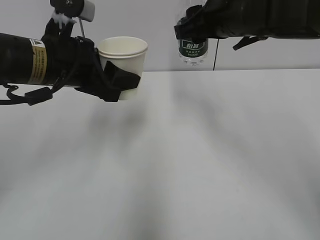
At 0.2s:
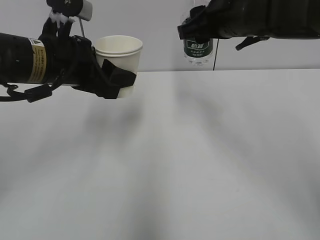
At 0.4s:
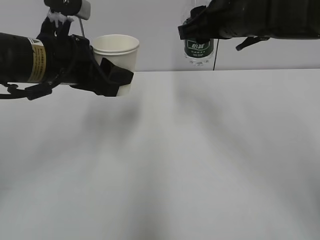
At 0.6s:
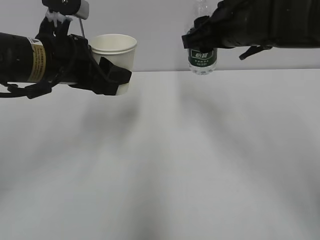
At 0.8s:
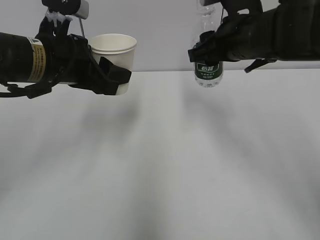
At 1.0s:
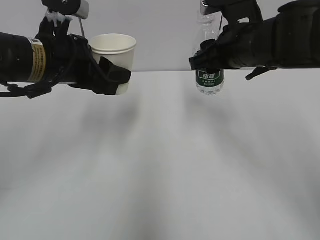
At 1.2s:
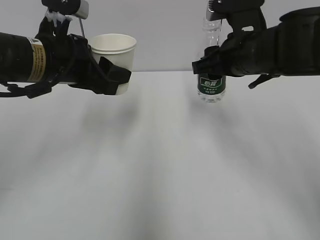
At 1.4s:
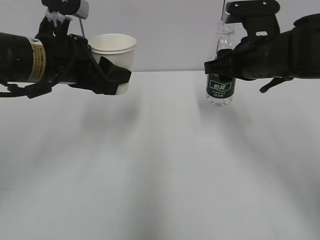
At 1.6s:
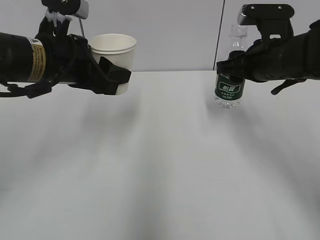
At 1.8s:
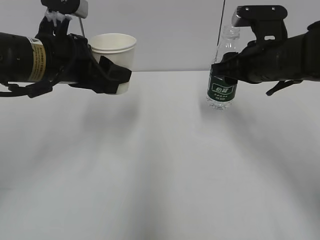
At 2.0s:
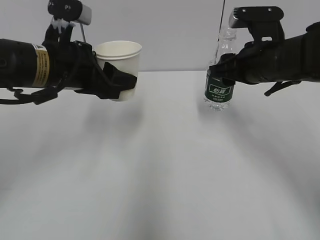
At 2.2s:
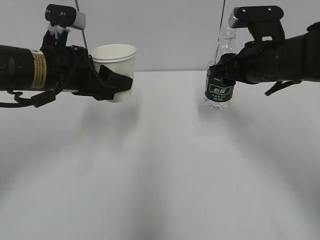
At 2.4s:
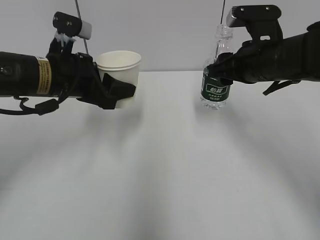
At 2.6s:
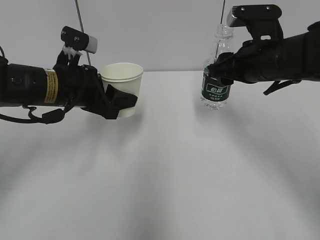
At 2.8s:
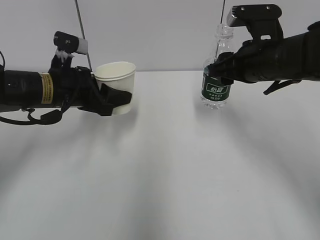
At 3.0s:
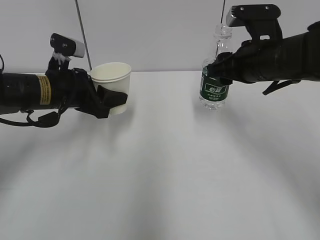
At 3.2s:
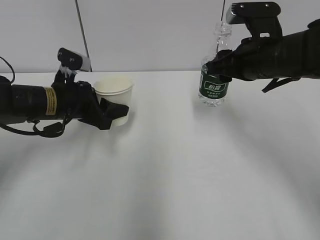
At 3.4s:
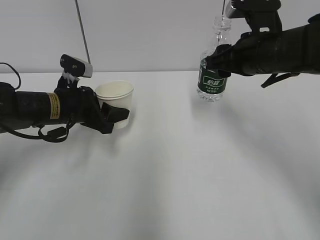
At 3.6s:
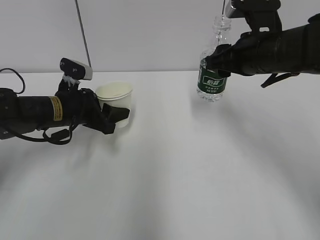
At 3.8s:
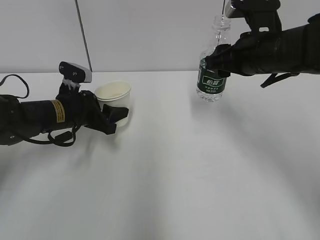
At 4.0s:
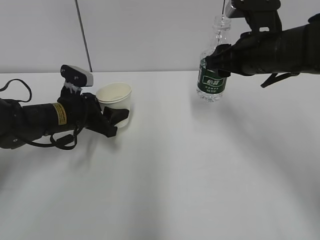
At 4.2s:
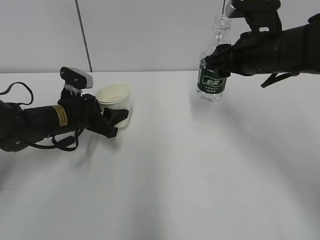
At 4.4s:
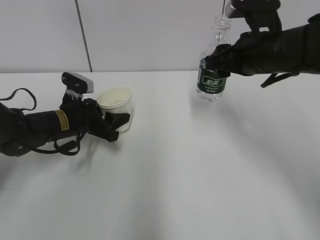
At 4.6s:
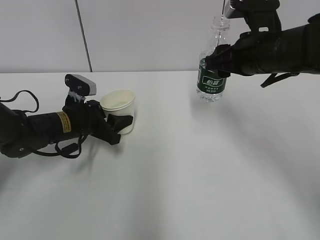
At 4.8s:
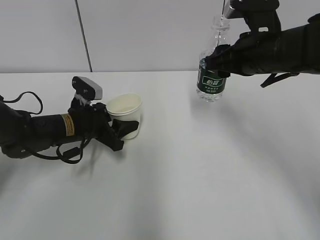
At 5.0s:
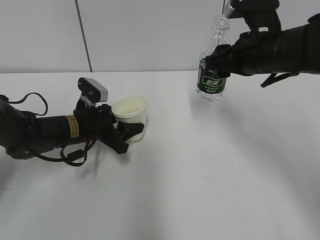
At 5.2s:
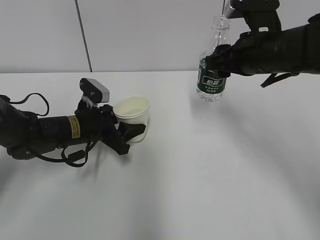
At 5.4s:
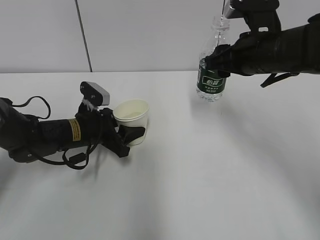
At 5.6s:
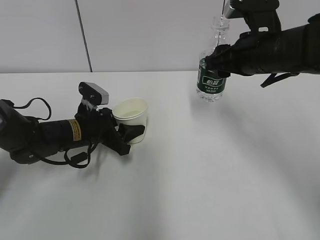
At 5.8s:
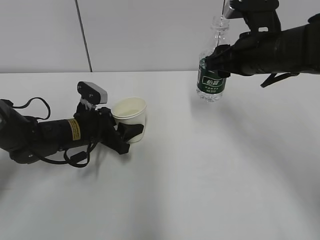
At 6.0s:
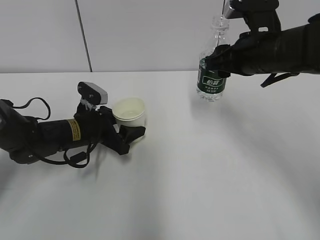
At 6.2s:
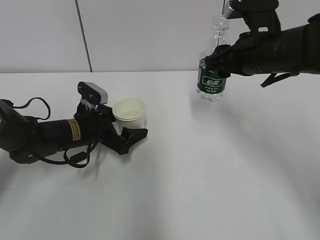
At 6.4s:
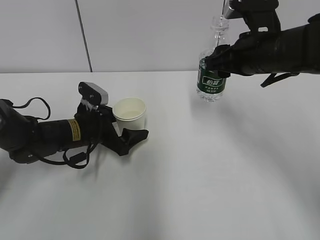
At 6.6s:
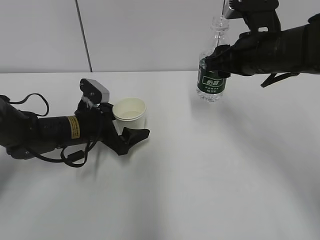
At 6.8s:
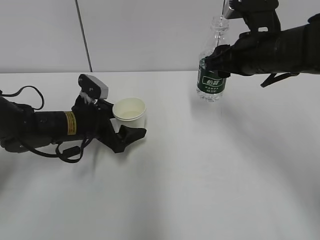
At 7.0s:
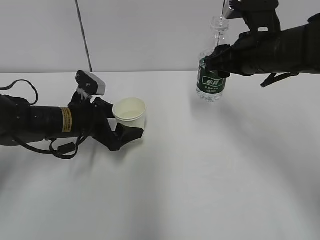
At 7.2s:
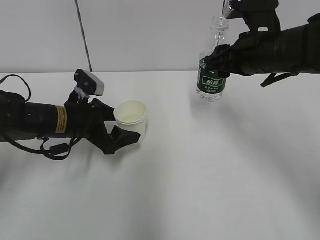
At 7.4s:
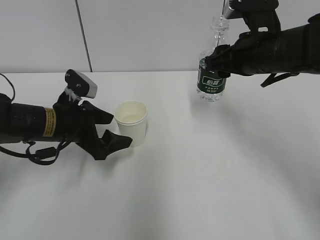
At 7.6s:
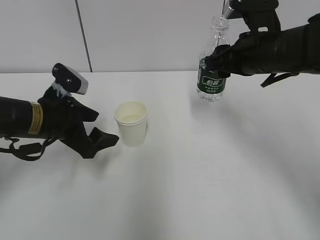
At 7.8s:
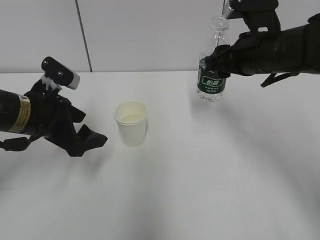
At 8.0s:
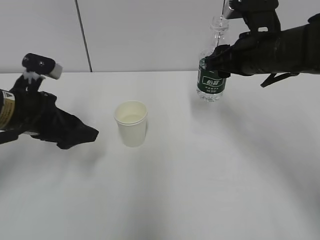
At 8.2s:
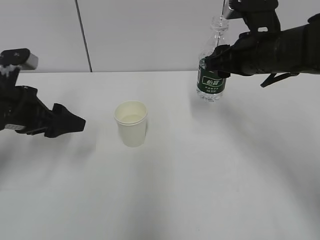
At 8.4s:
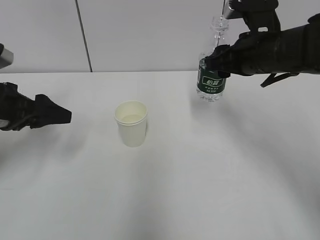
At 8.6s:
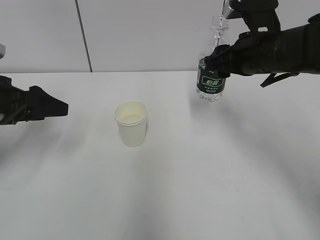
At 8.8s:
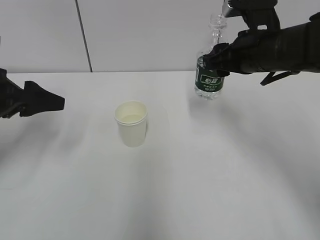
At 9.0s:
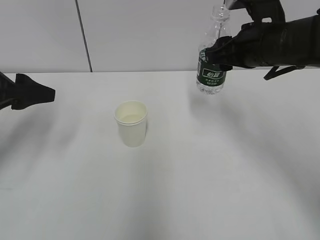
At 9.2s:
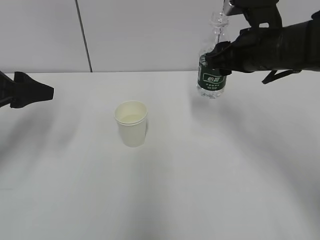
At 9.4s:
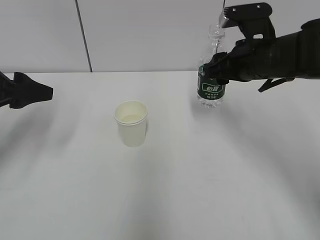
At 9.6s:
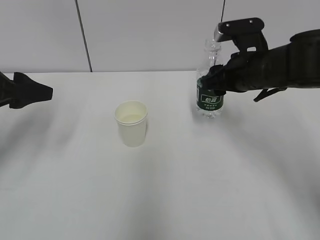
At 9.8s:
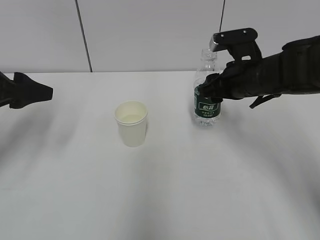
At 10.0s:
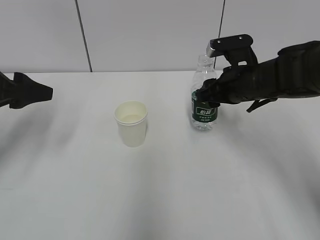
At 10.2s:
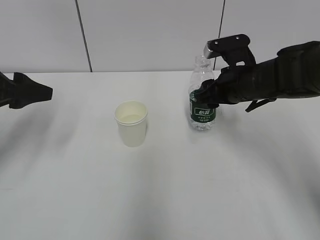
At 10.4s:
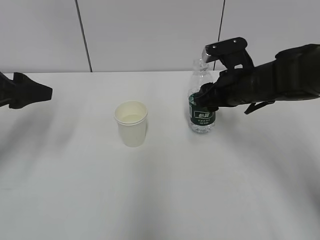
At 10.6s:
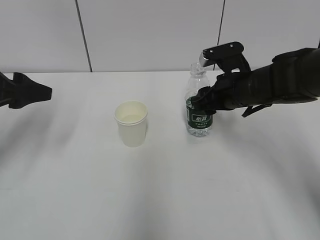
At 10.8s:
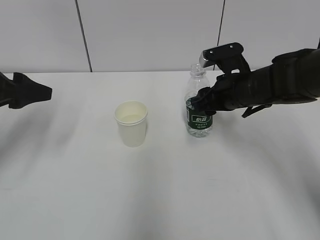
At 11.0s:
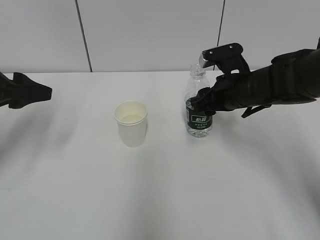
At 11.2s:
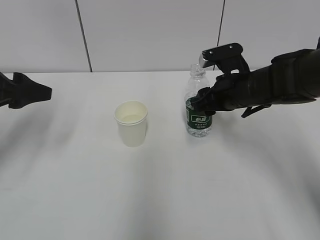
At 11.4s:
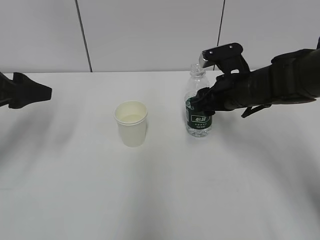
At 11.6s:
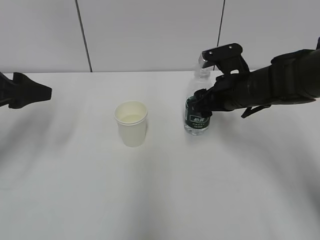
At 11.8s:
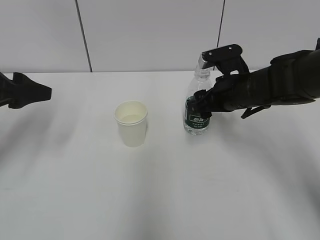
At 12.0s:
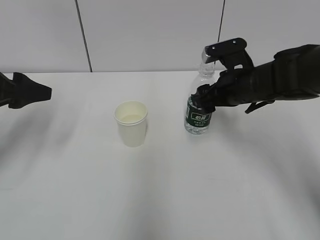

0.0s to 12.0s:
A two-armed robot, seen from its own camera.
Step, 0.0s to 4.0s: Place the water bottle with the right hand.
0.0s to 1.6s: The right gripper is displaced downward and to the right by about 10 cm.
1.6s to 3.0s: The left gripper moves downward, about 10 cm.
3.0s to 4.4s: The left gripper travels downward by roughly 10 cm.
4.4s to 6.0s: There are only small adjustments of the grippers.
6.0s to 7.6s: The left gripper shifts some 10 cm upward and backward, and opens up.
7.6s to 9.0s: The left gripper travels to the left and upward by roughly 15 cm.
9.0s to 10.4s: The right gripper shifts some 10 cm downward.
10.4s to 12.0s: The right gripper opens its fingers.

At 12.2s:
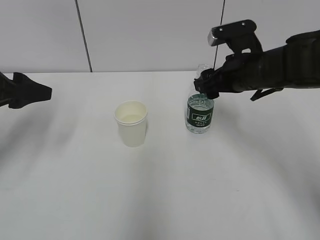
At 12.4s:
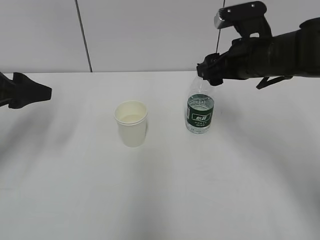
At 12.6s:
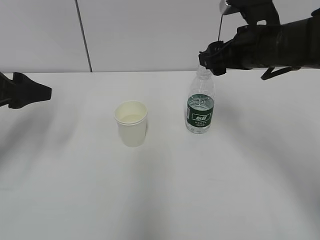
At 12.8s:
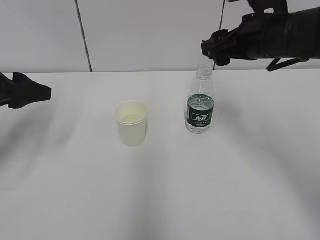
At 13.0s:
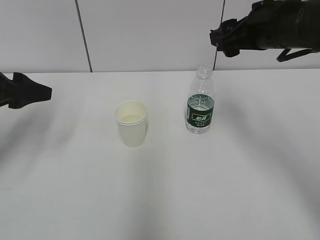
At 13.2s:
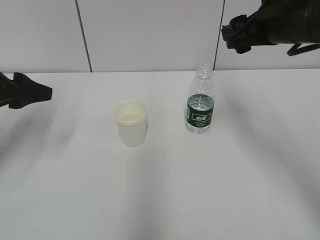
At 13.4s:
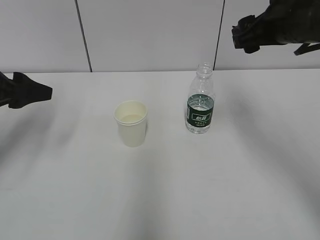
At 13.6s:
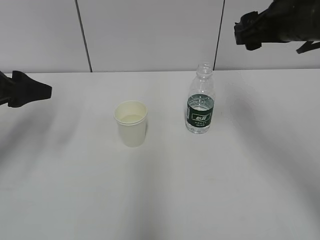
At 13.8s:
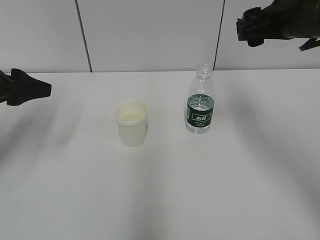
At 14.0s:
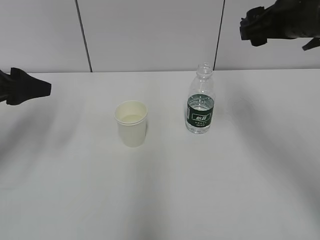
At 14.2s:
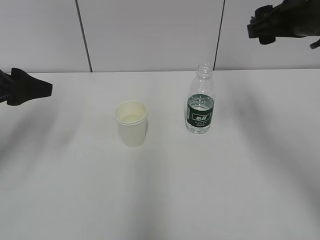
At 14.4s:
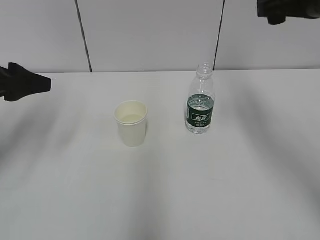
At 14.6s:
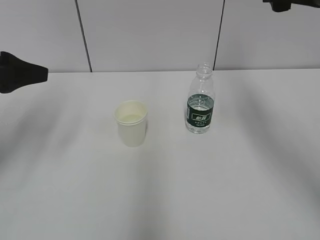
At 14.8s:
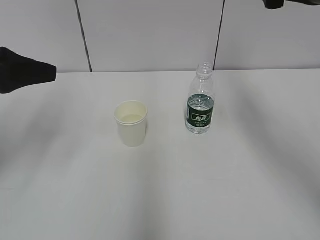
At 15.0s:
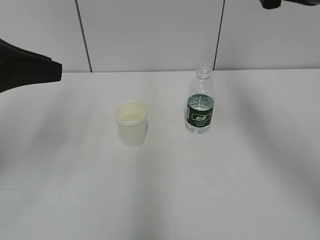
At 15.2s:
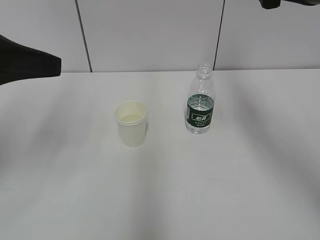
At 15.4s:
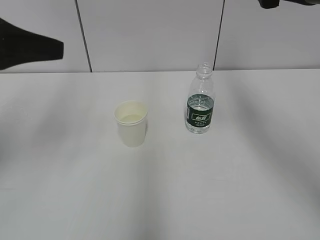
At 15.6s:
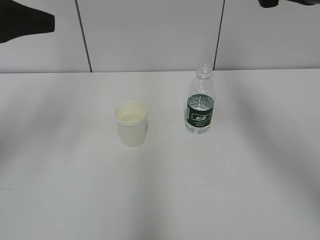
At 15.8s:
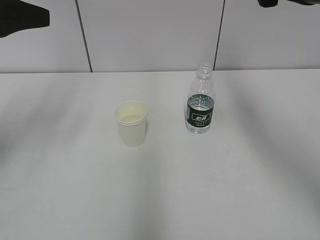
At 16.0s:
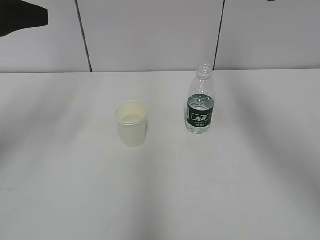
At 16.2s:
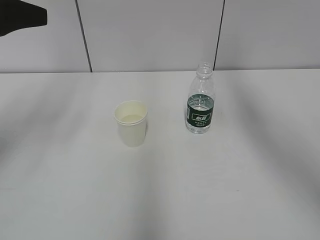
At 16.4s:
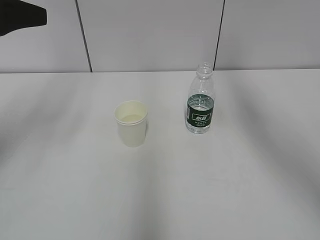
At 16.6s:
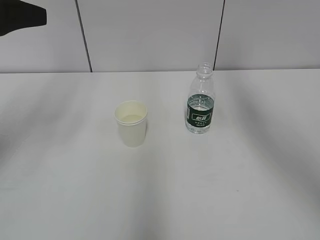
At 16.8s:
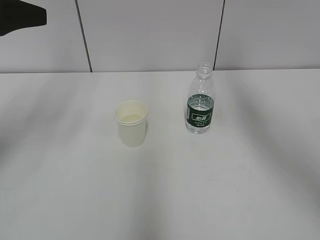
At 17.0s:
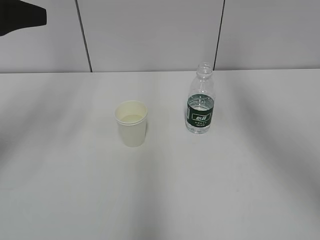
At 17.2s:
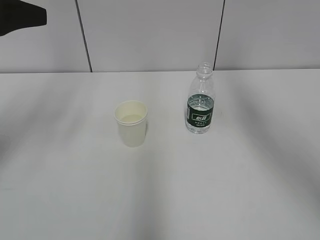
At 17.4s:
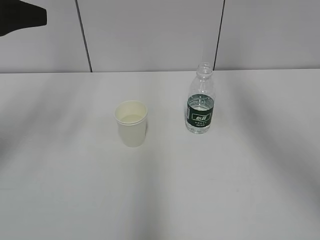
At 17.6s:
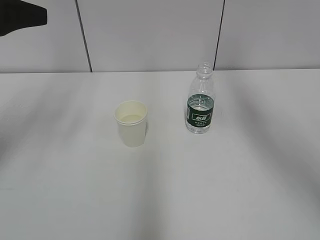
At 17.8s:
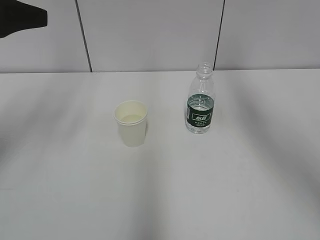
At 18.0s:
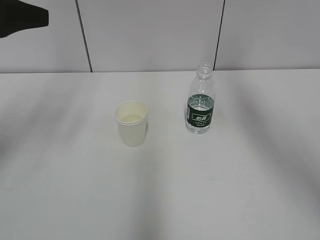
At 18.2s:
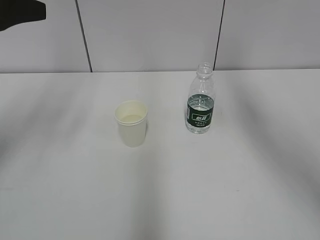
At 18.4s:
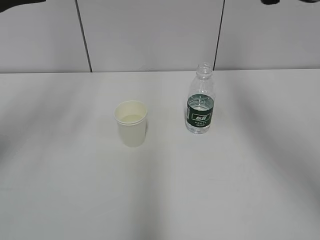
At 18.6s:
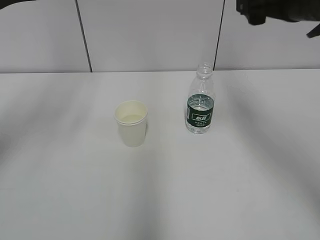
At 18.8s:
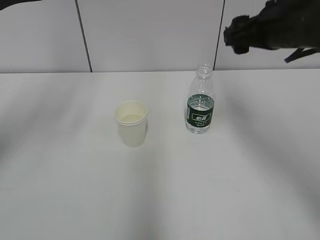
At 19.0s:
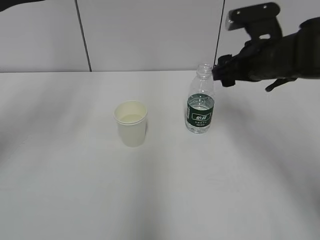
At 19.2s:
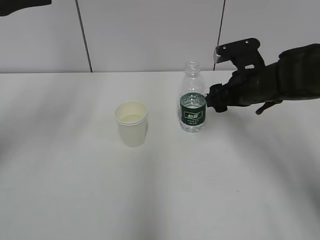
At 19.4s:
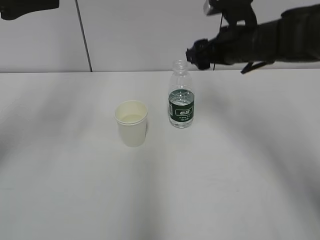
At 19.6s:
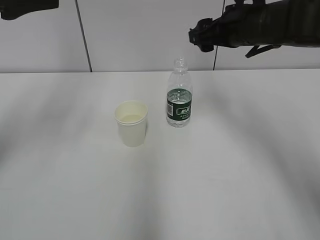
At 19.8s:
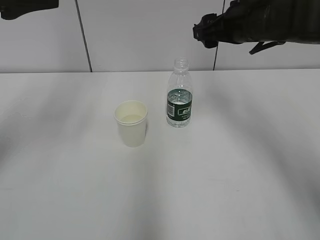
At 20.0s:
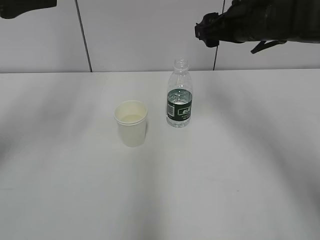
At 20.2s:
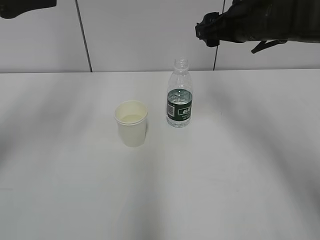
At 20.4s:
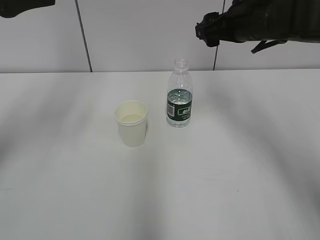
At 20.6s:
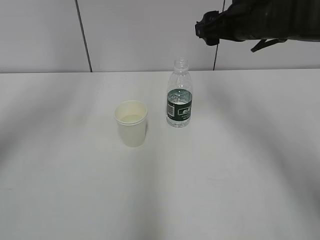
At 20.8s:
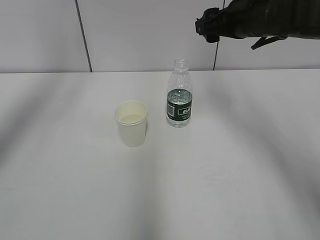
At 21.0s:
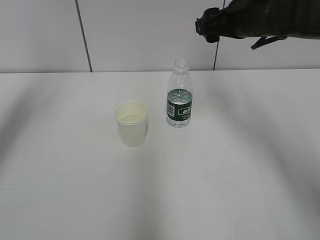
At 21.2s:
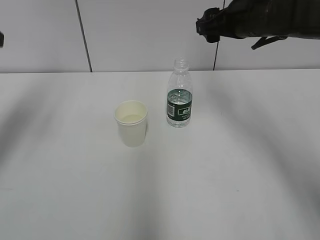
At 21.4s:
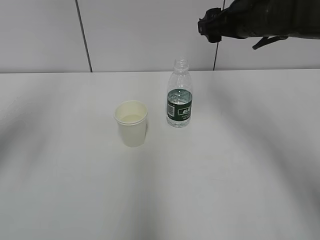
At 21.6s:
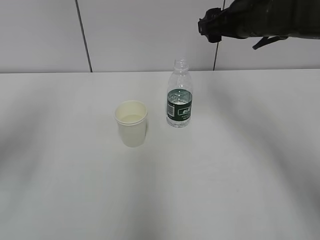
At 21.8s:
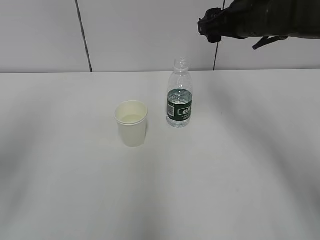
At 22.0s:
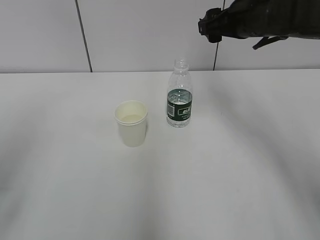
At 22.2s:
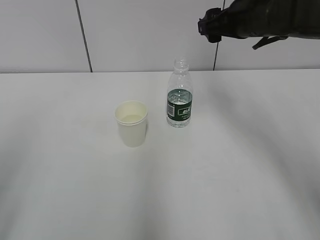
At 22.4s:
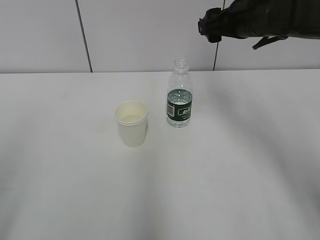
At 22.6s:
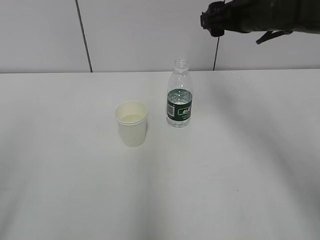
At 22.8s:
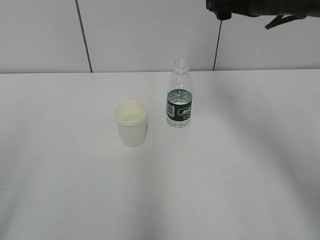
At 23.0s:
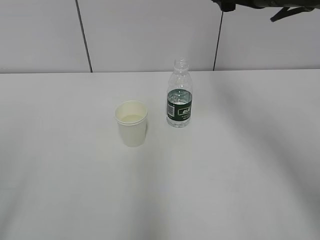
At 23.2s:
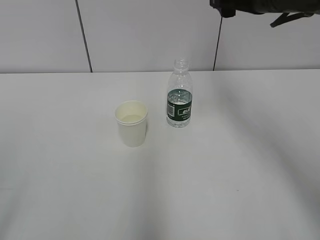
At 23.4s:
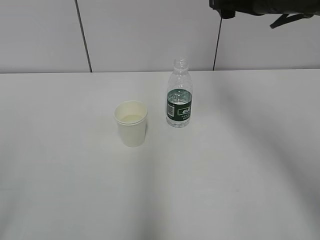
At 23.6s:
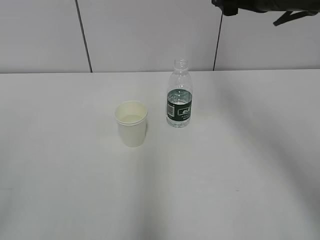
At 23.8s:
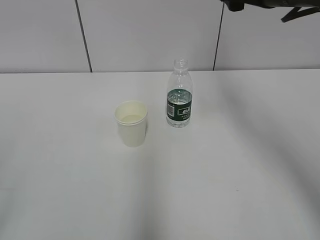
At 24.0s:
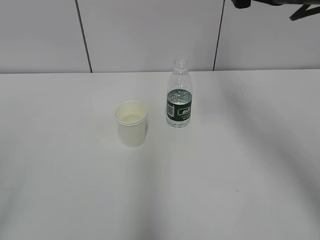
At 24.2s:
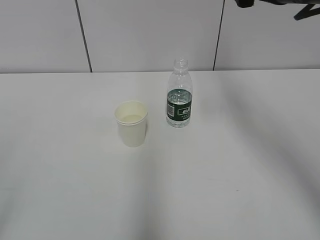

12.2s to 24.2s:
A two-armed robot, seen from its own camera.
12.2s to 13.8s: The right gripper heads upward, covering about 10 cm.
13.8s to 15.2s: The two grippers go some 5 cm upward.
15.2s to 16.6s: The left gripper moves roughly 5 cm.
16.6s to 18.2s: The two grippers keep their place.
18.2s to 19.8s: The right gripper is displaced forward and downward by approximately 15 cm.
19.8s to 21.2s: The left gripper moves approximately 5 cm.
21.2s to 22.6s: The left gripper moves backward, approximately 25 cm.
22.6s to 24.2s: The right gripper shifts about 10 cm backward and upward.
